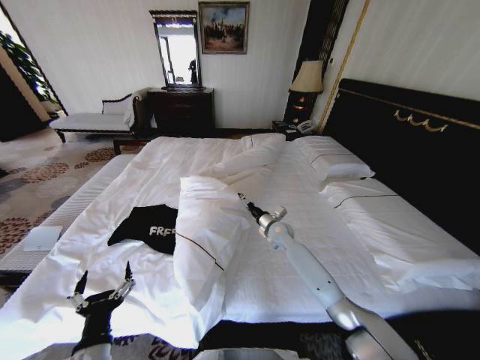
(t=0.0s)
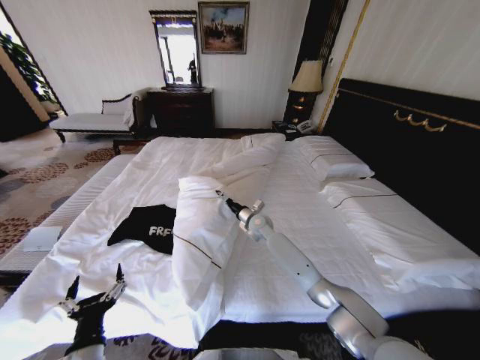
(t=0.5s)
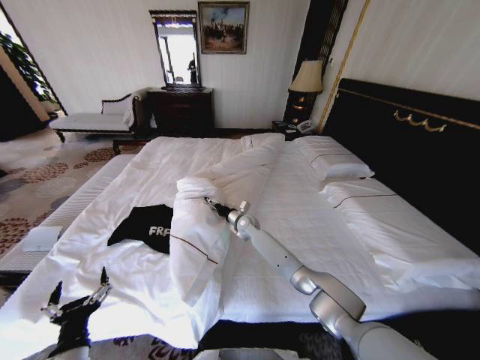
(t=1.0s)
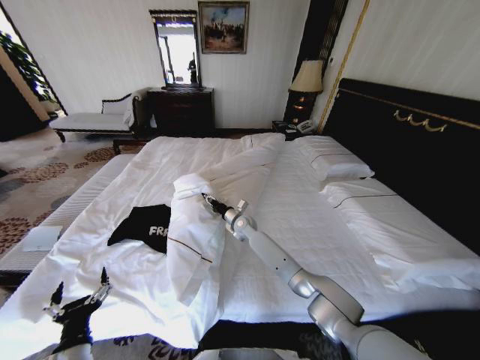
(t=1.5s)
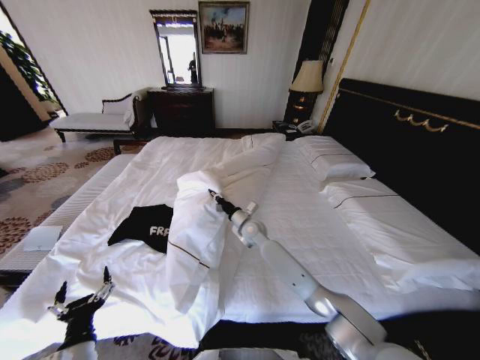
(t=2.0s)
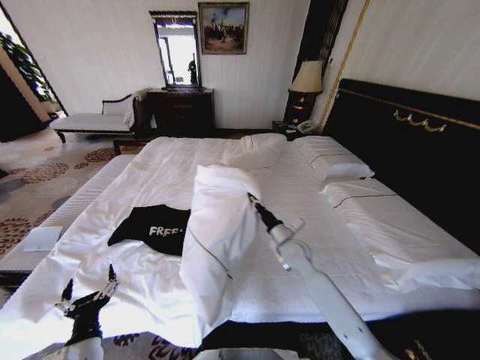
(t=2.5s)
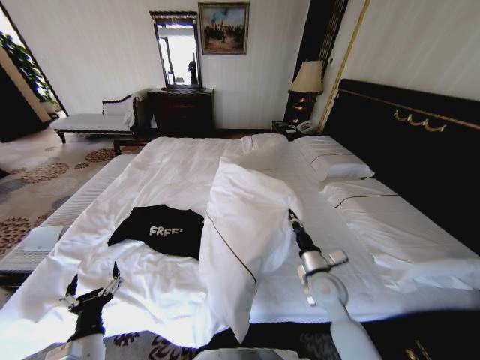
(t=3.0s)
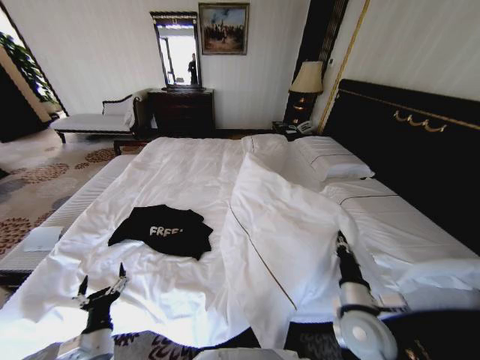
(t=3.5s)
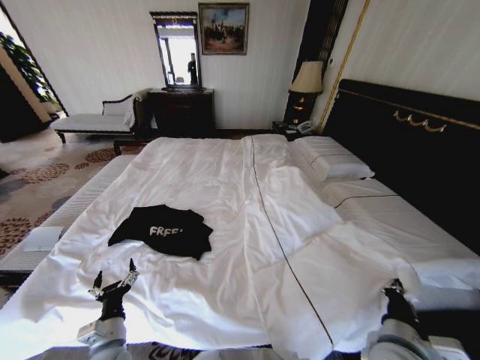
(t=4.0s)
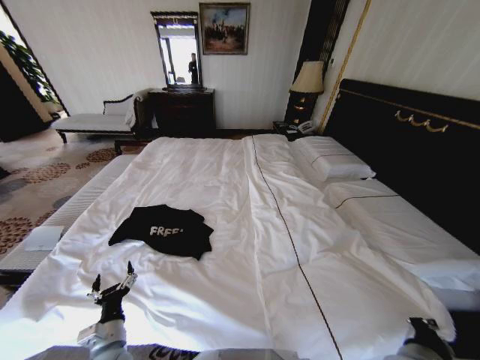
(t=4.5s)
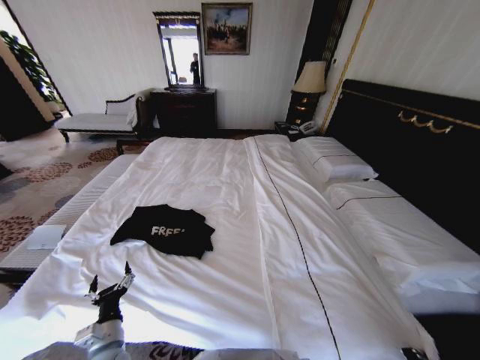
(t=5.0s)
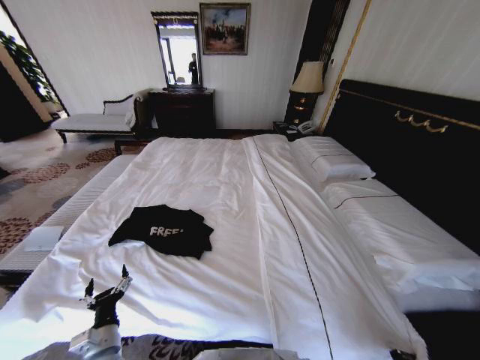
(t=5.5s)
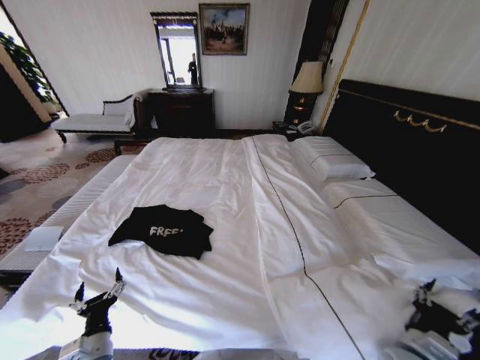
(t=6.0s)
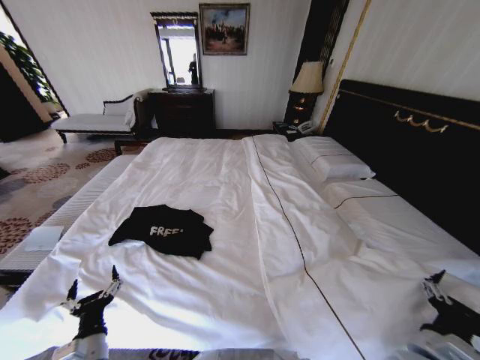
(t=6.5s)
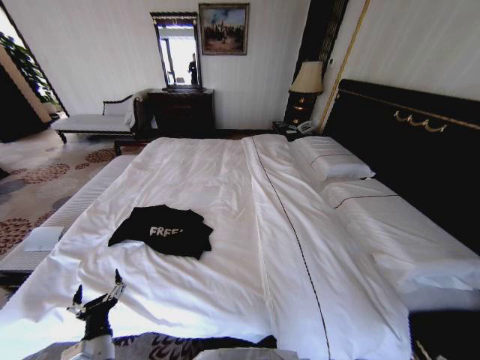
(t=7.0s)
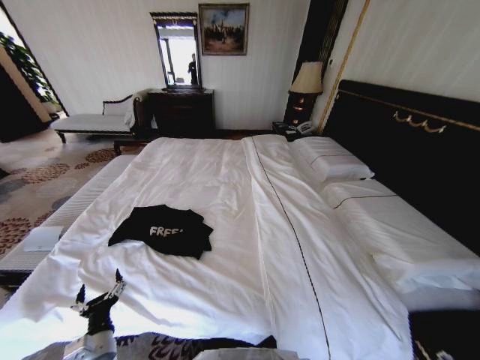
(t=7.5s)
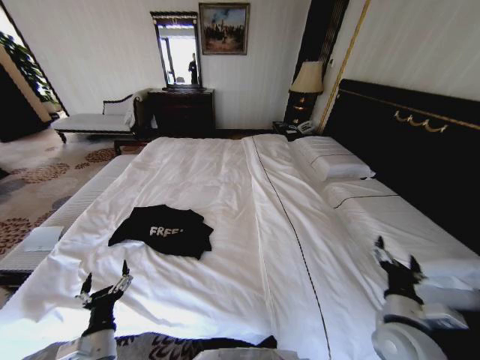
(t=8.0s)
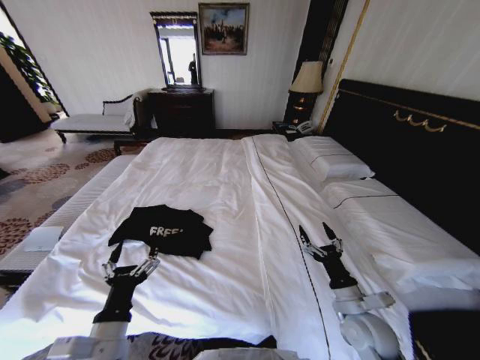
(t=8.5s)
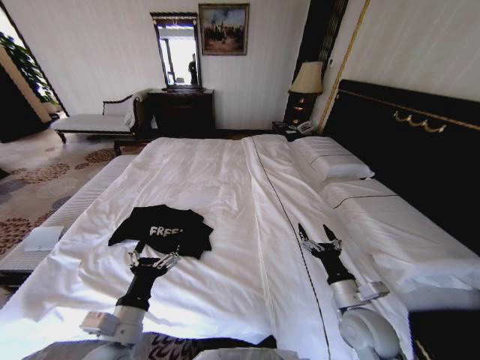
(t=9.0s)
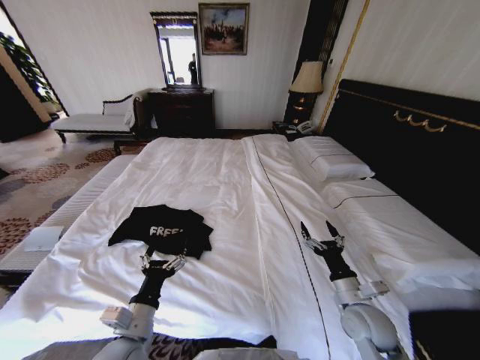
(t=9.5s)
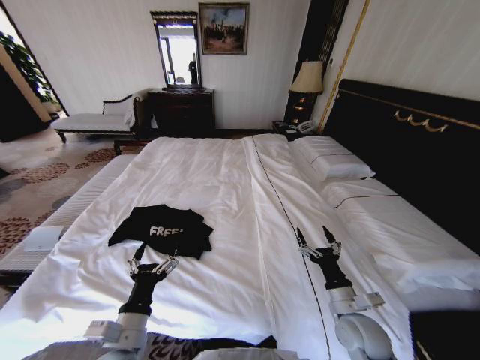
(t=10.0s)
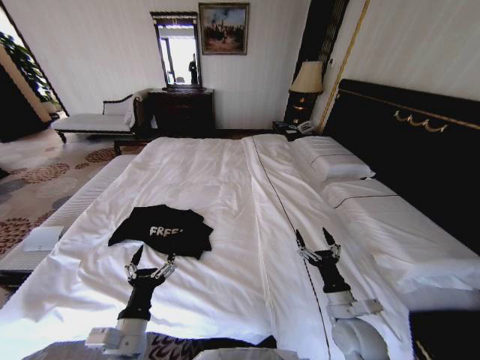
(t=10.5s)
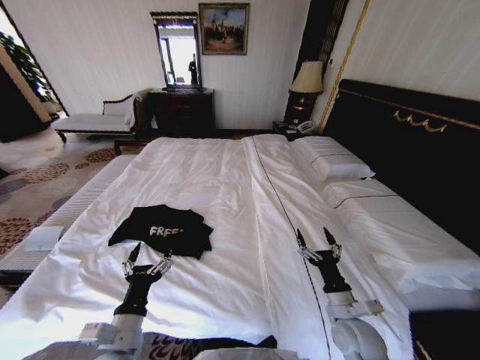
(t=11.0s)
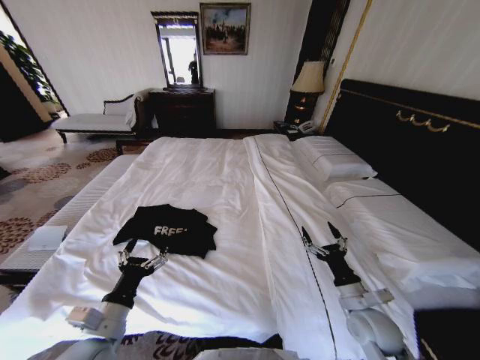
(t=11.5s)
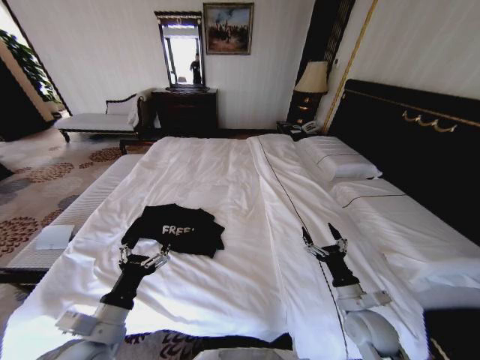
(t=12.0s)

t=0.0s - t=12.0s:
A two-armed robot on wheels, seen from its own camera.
Task of the whole recording: Fold the clothes on the bed.
t=0.0s - t=2.0s: The left gripper ends up some 5 cm from where it was. The right gripper goes about 10 cm to the left, and closes its fingers.
t=2.0s - t=4.0s: The left gripper heads forward and downward, covering approximately 5 cm; the right gripper heads backward and to the right, covering about 40 cm.
t=4.0s - t=6.0s: The right gripper goes some 10 cm downward and to the right, and opens its fingers.
t=6.0s - t=8.0s: The right gripper goes up and down, some 15 cm each way, reversing 2 times, and opens its fingers.
t=8.0s - t=10.0s: The right gripper shifts some 5 cm to the left, while the left gripper moves upward and to the right, roughly 10 cm.
t=10.0s - t=12.0s: The left gripper changes place by some 5 cm.

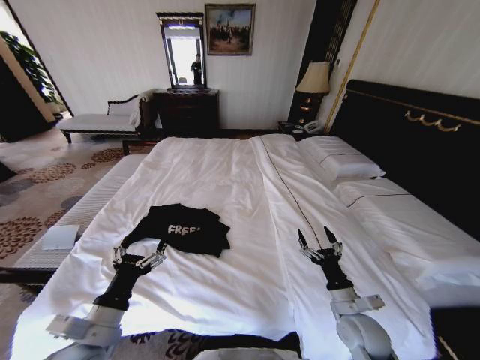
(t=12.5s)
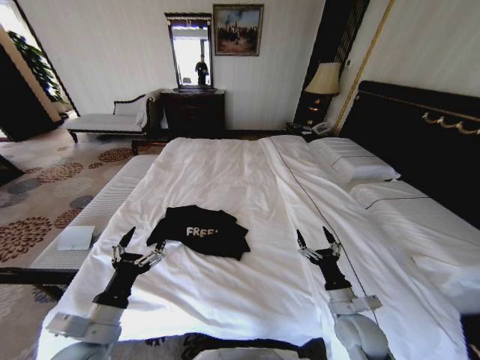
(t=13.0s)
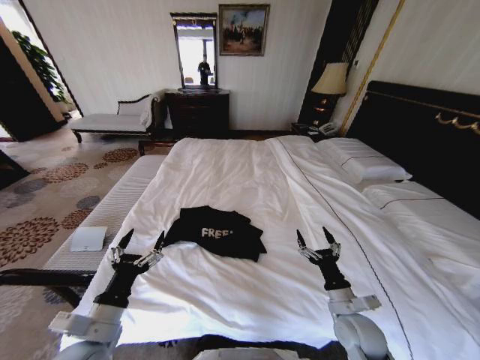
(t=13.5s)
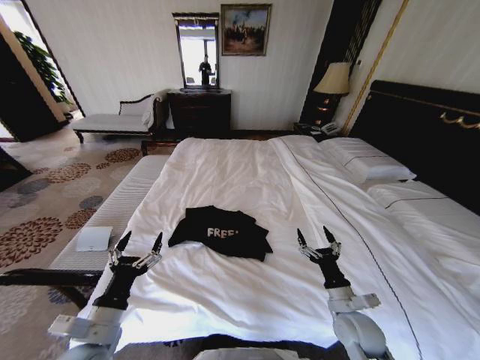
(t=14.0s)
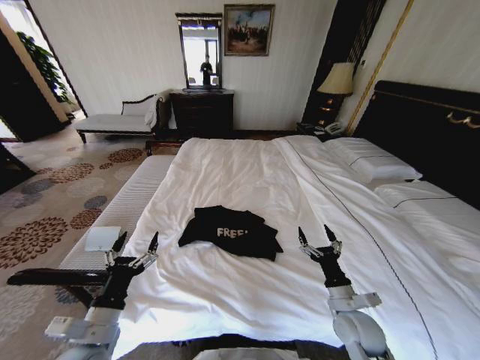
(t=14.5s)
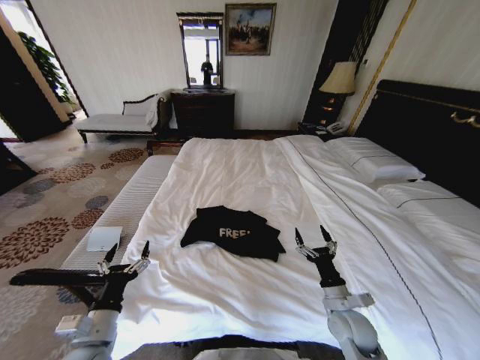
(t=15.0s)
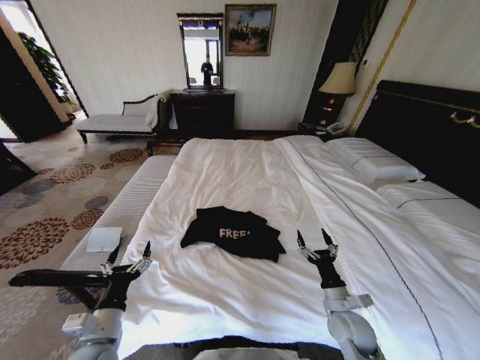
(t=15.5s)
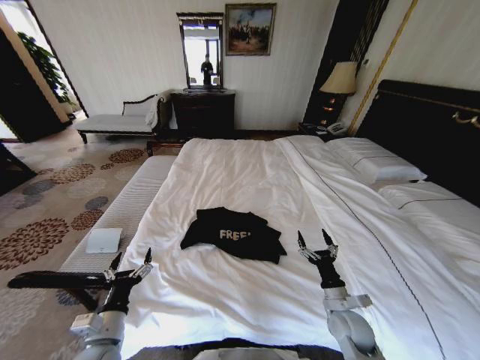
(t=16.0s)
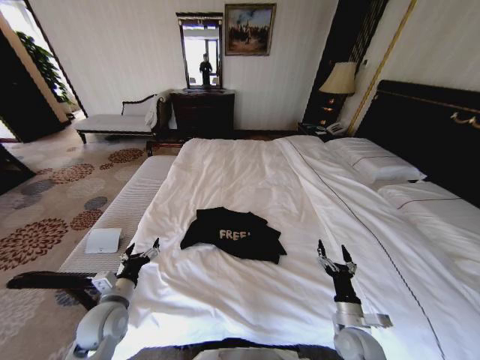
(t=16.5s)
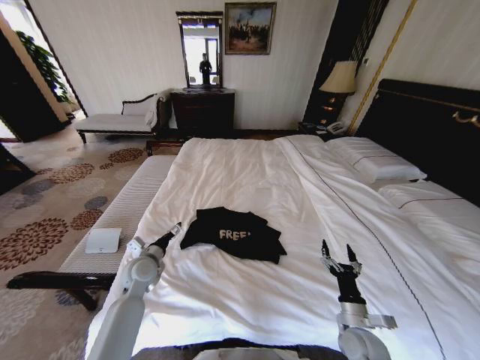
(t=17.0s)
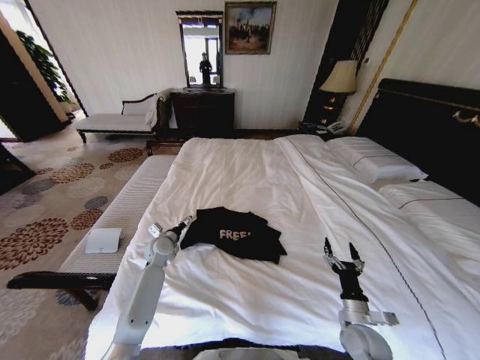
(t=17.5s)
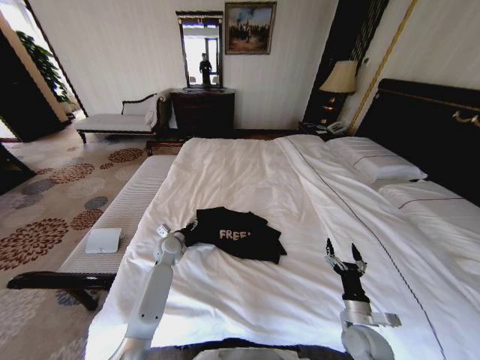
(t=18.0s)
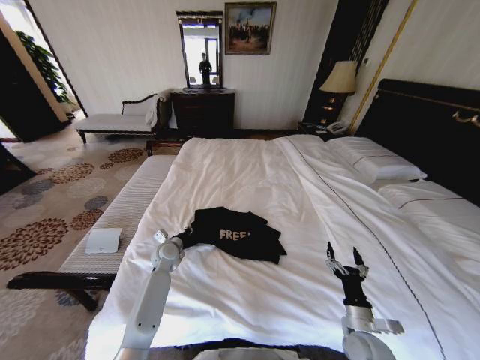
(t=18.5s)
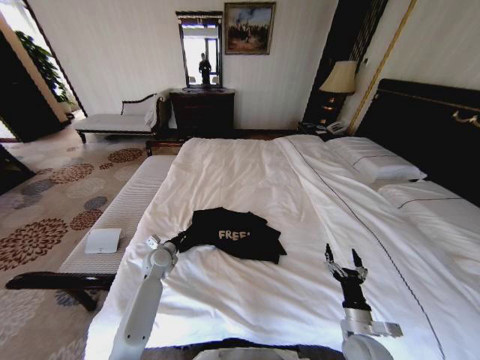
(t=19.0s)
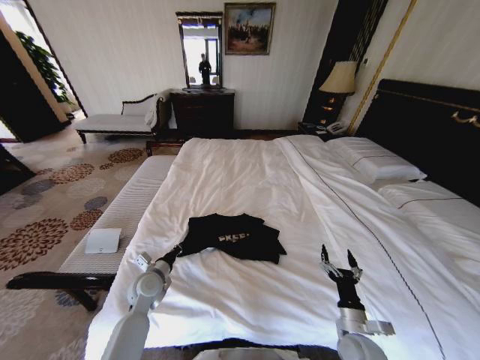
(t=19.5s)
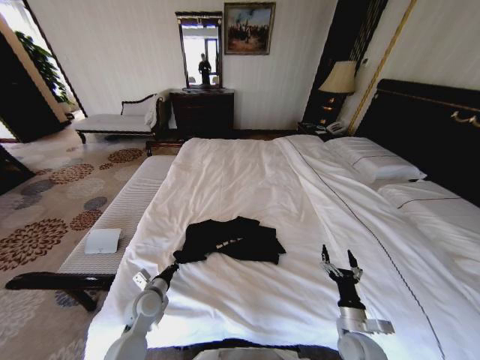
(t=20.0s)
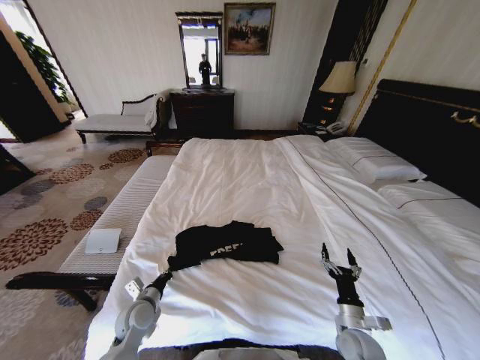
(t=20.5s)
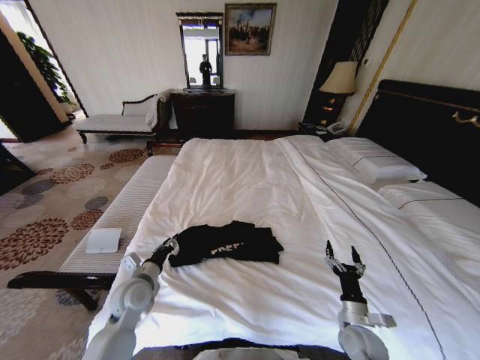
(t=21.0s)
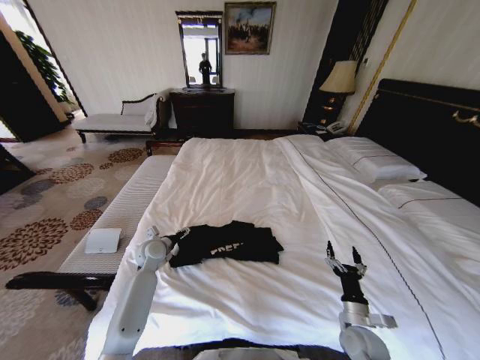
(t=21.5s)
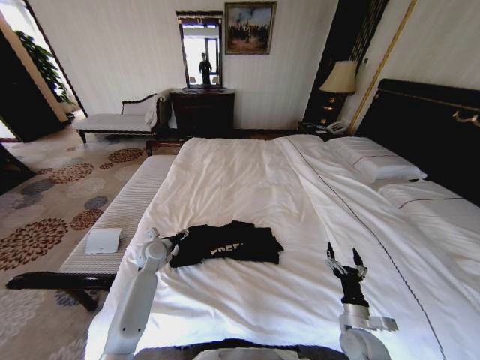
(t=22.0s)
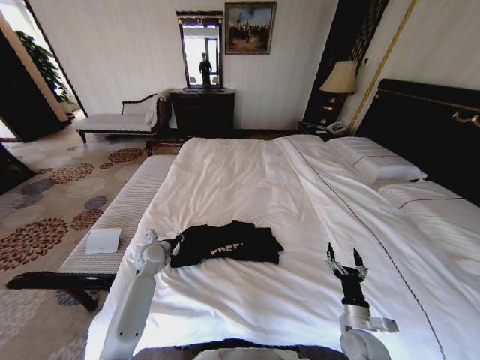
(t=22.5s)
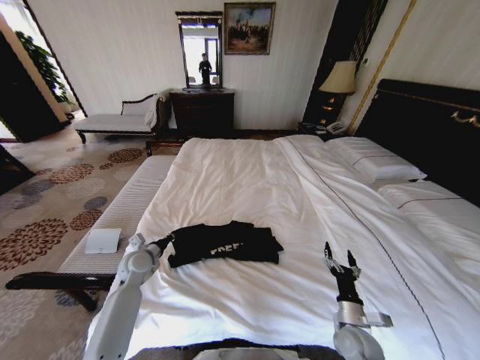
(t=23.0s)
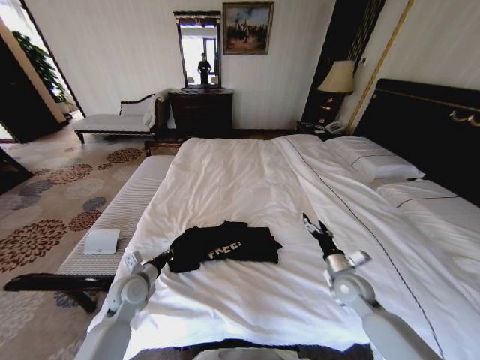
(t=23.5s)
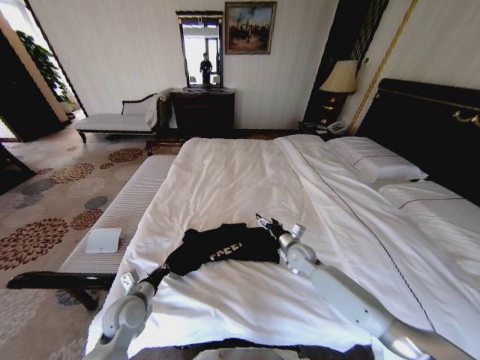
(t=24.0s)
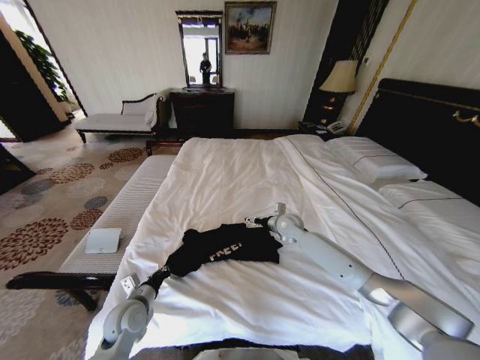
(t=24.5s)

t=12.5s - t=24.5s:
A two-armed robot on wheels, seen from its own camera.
Task of the whole recording: Fold the clothes on the bed.
t=14.5s - t=16.5s: The left gripper goes some 10 cm forward and downward; the right gripper shifts roughly 5 cm downward.
t=16.5s - t=18.5s: The left gripper heads forward, covering some 20 cm, and closes its fingers.
t=18.5s - t=20.5s: The left gripper goes some 20 cm backward.
t=20.5s - t=22.5s: The left gripper heads forward, covering roughly 15 cm, and opens and closes again.
t=22.5s - t=24.5s: The left gripper goes some 20 cm backward. The right gripper is displaced forward and to the left by approximately 35 cm.

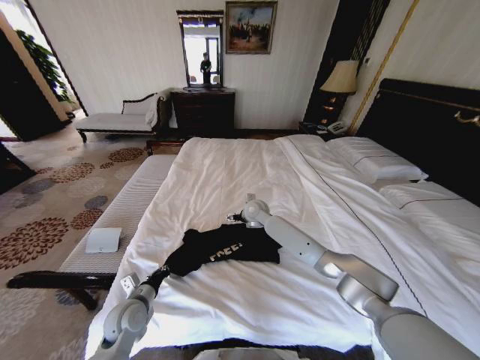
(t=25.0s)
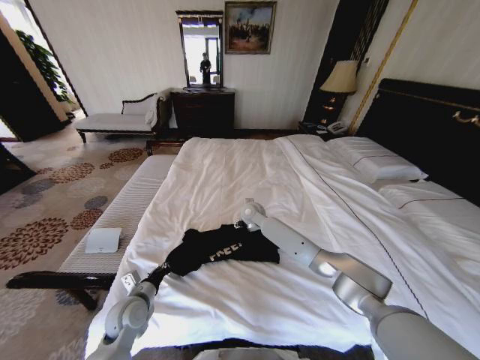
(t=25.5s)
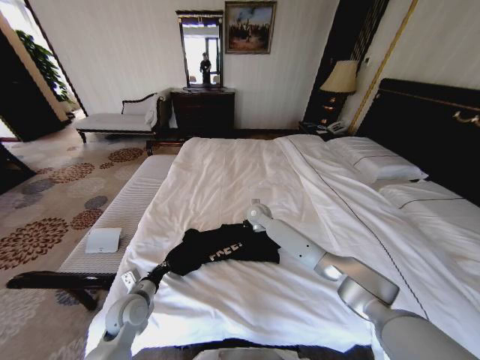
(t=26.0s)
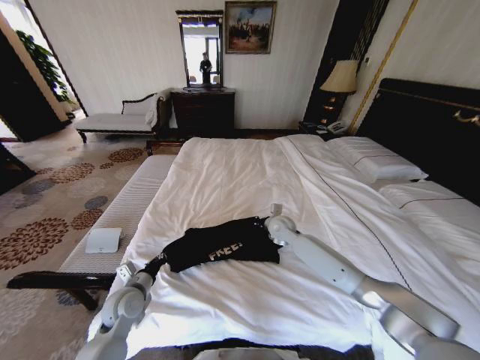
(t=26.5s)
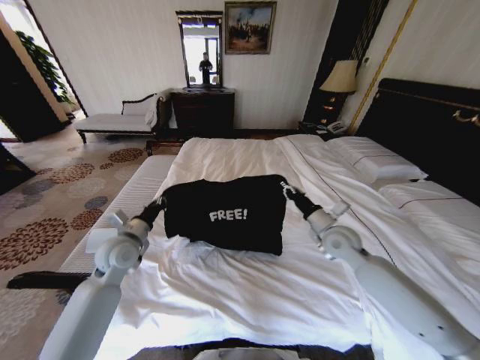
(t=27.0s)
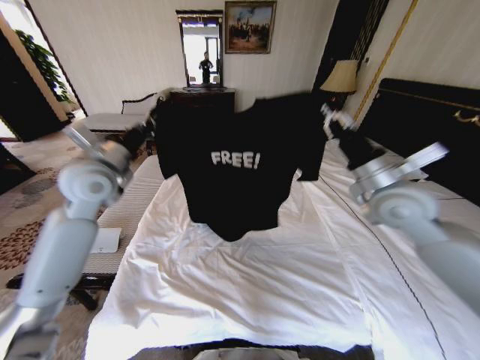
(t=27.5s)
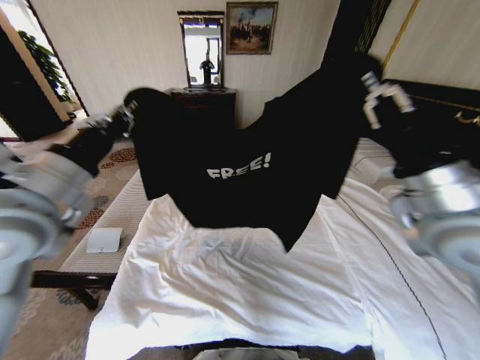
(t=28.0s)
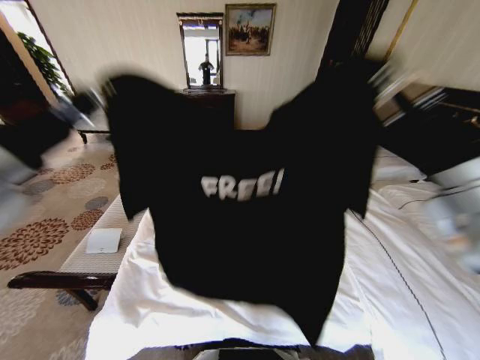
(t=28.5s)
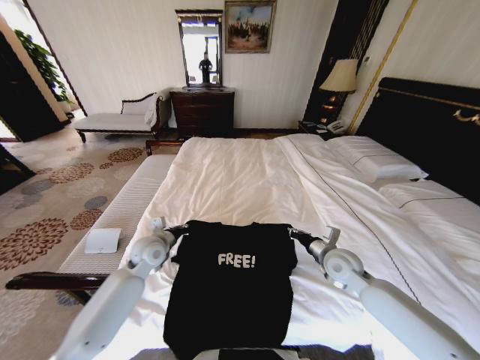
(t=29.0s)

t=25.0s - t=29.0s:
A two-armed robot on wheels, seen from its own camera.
Task of the whole recording: Fold the clothes on the bed.
t=25.0s - t=27.0s: The right gripper heads to the right and backward, covering some 25 cm, and closes, while the left gripper is displaced upward and forward by about 20 cm.
t=27.0s - t=29.0s: The right gripper goes upward and returns, approximately 25 cm each way, while the left gripper goes some 5 cm to the right, and travels upward and back again, about 25 cm each way.
